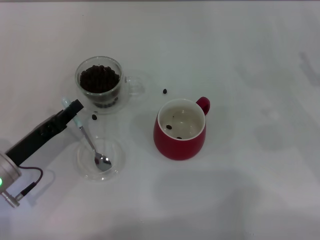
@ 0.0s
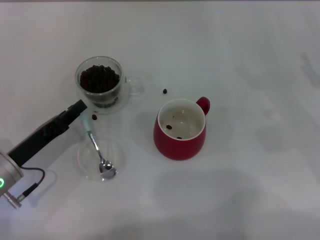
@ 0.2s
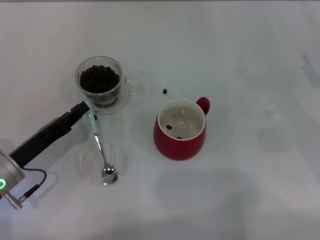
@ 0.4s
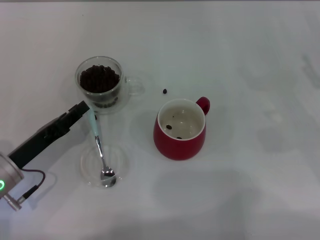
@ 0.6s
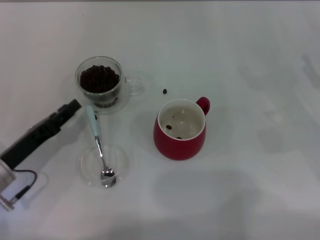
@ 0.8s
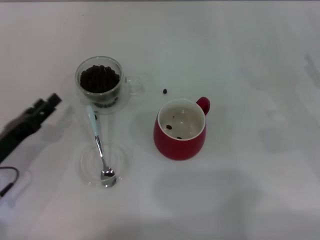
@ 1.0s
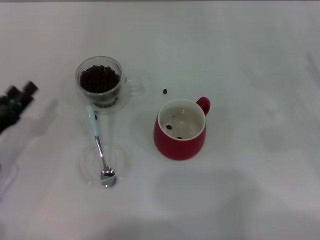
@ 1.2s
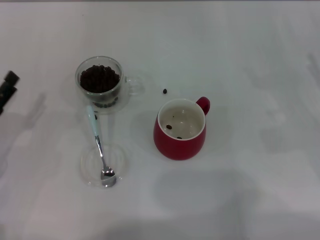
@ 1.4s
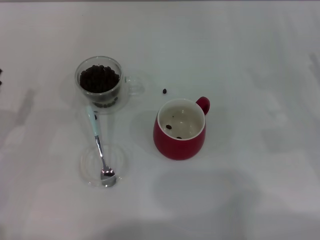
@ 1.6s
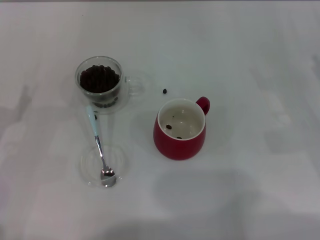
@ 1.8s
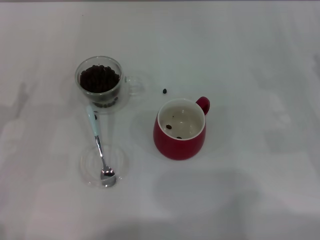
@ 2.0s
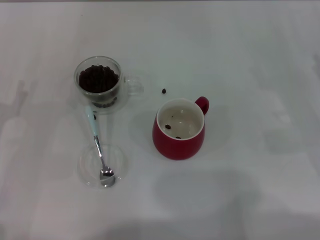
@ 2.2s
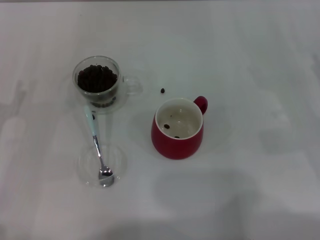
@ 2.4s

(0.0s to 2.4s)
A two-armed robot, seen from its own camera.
Task of the whole recording: Use a blue spoon to take out the coffee beans from the glass and pour them into the red cup.
0.0s - 1.2s: The left gripper opens up.
